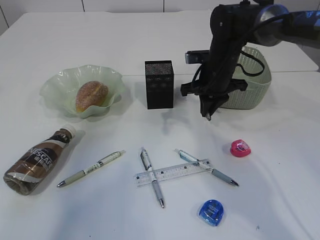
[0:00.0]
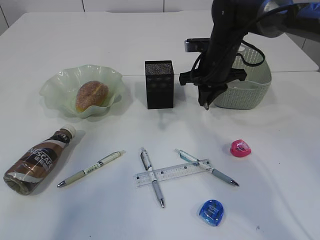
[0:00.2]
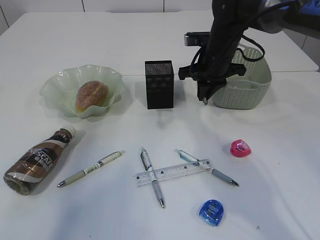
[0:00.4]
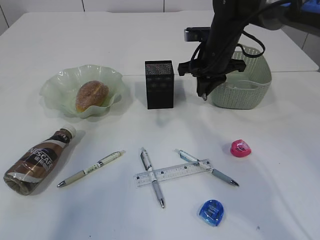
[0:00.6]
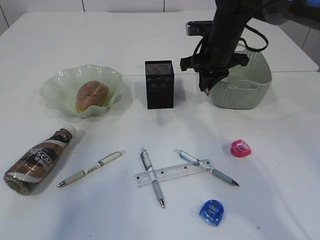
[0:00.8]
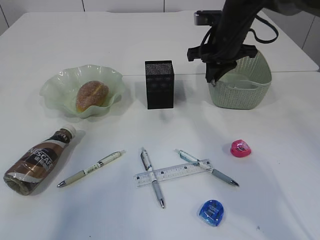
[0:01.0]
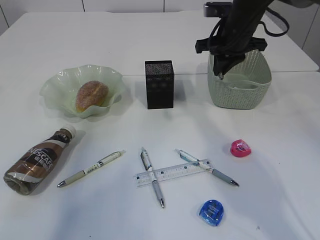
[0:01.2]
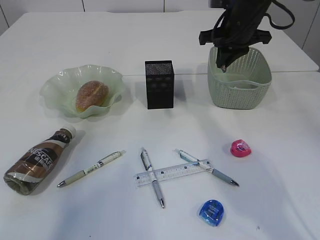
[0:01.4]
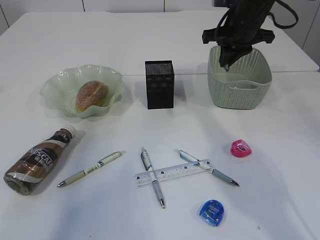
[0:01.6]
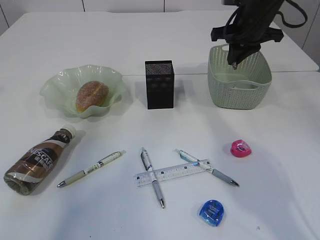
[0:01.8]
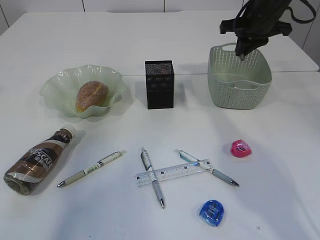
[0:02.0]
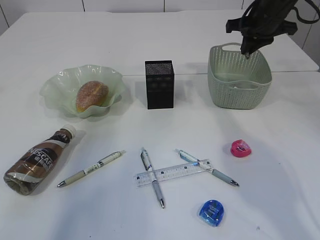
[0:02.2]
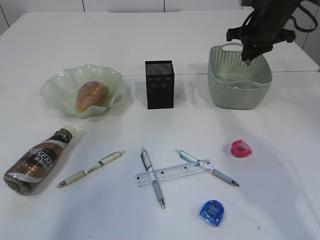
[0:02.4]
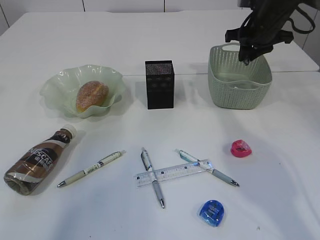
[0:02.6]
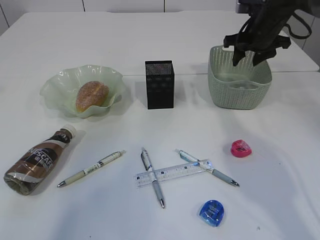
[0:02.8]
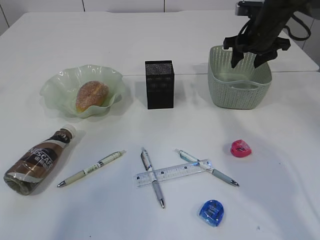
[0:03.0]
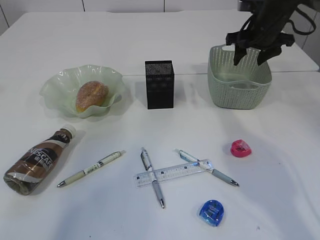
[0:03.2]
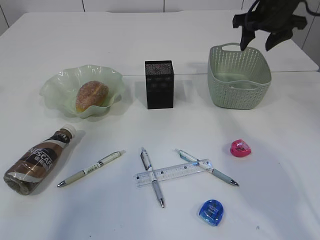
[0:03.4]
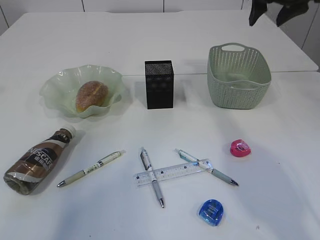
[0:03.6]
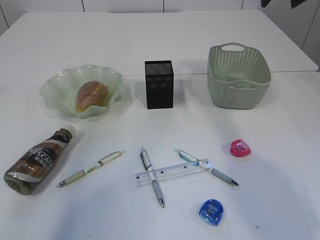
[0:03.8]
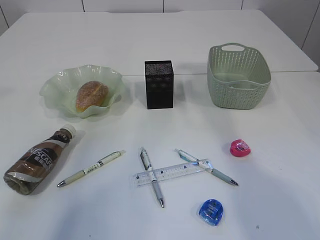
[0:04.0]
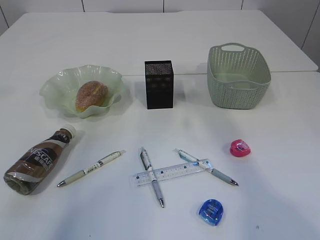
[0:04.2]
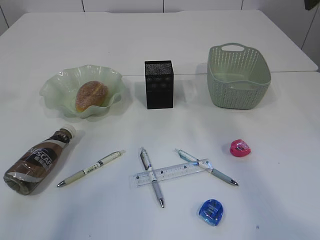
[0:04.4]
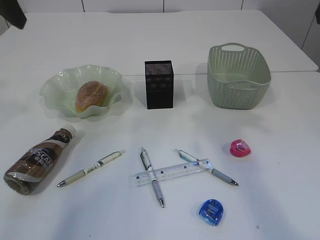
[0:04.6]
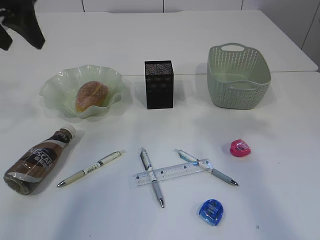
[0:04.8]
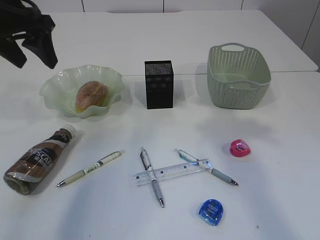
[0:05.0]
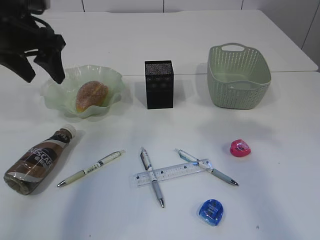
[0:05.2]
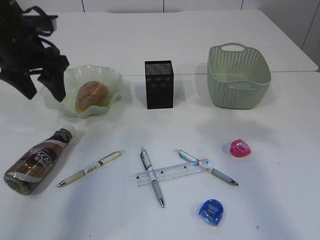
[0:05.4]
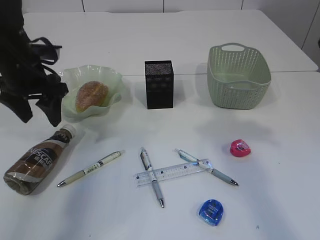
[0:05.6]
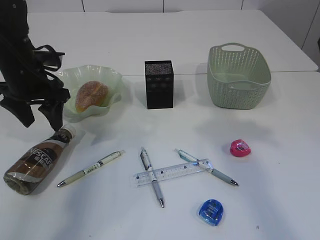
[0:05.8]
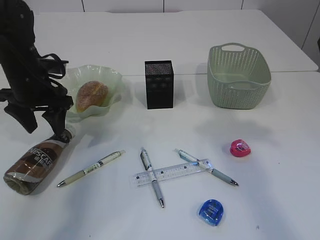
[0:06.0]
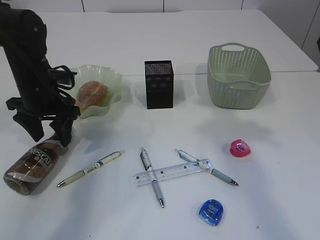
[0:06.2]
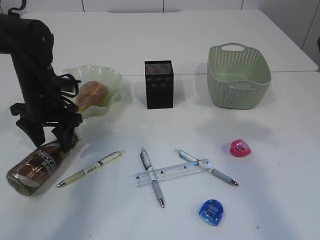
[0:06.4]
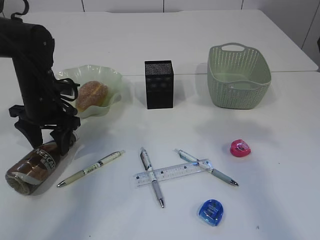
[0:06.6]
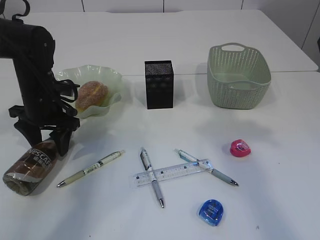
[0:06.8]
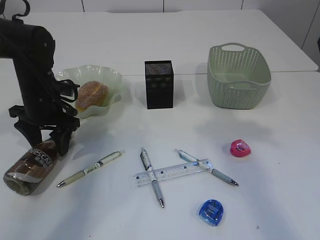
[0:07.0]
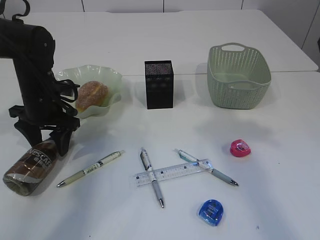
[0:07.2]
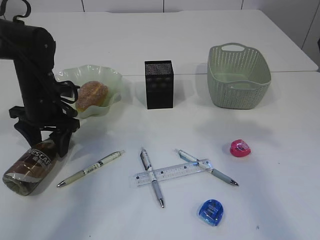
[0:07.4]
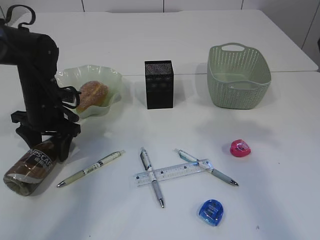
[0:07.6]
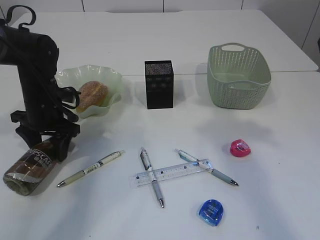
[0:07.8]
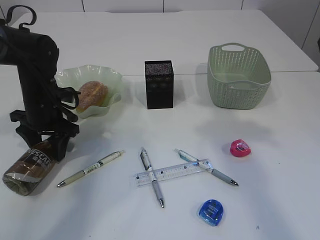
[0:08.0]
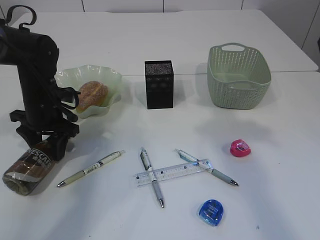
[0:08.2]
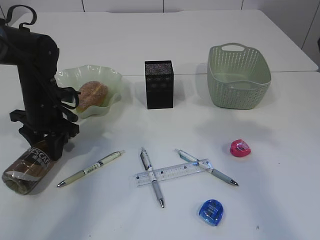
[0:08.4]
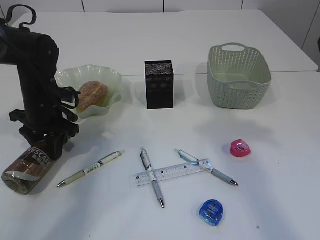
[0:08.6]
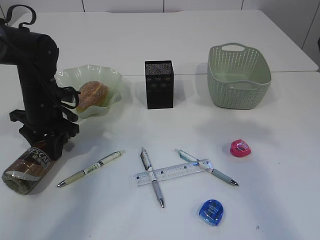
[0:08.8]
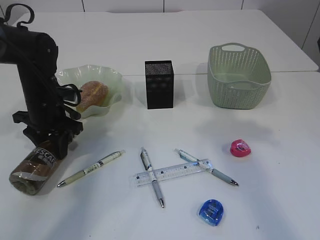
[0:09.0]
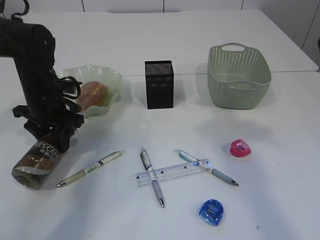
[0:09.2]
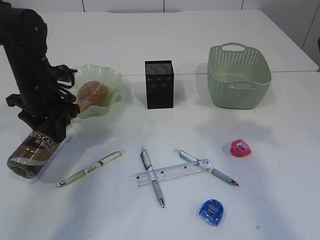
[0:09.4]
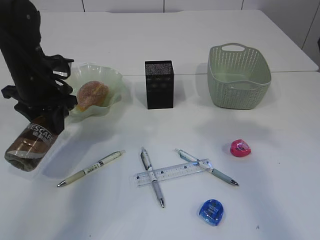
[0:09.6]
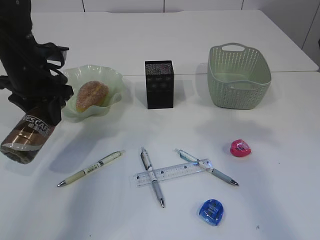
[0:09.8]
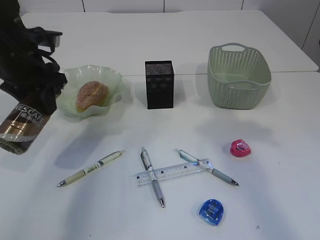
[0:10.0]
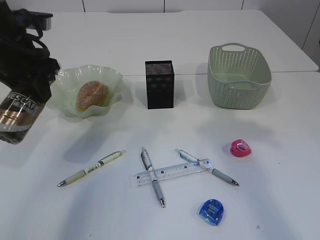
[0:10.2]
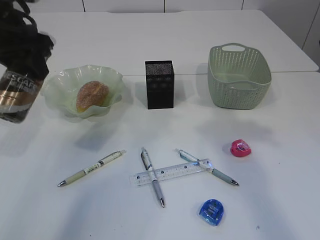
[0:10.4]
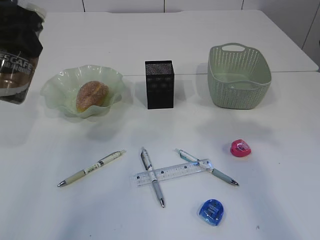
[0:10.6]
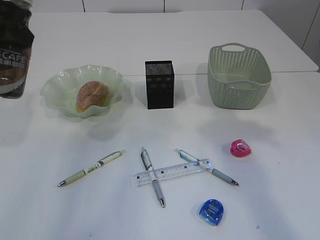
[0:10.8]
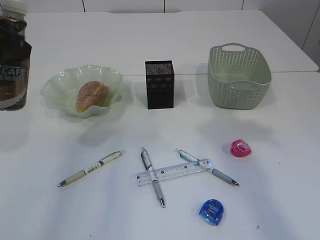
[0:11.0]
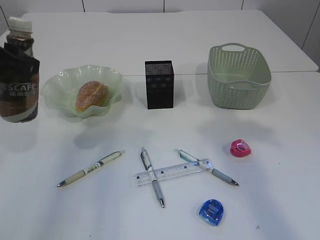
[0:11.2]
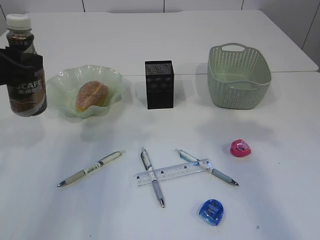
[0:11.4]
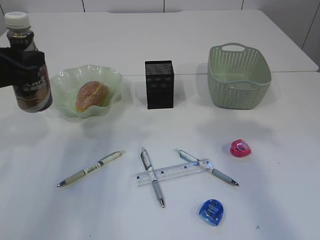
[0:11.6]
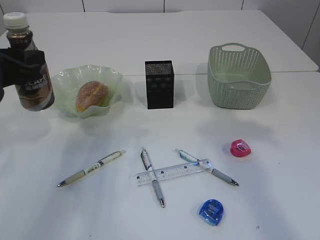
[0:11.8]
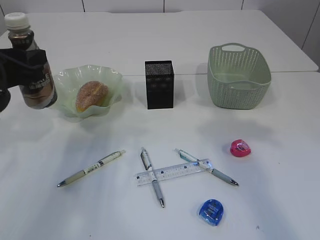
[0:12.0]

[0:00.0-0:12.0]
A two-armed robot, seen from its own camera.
Step, 0:00.8 to 0:02.8: Place the waste paper in the basket.
Step, 0:03.0 to 0:10.0: Pick up the bottle with the left arm.
0:00.0 to 0:01.6: The right gripper is displaced upward by some 10 cm.
0:01.6 to 0:03.0: The right gripper heads to the right, covering some 5 cm, and opens.
0:03.0 to 0:04.4: The right gripper travels backward and upward by approximately 25 cm.
0:04.4 to 0:06.0: The left gripper travels downward by some 25 cm.
0:06.0 to 0:07.6: The left gripper is displaced downward by about 5 cm.
0:07.6 to 0:09.0: The left gripper closes up.
0:09.0 to 0:10.4: The left gripper moves upward, roughly 20 cm.
0:10.4 to 0:12.0: The left gripper goes roughly 10 cm downward and backward.

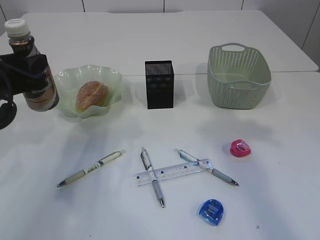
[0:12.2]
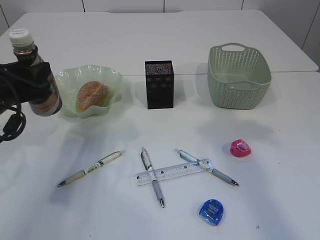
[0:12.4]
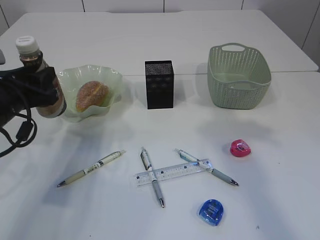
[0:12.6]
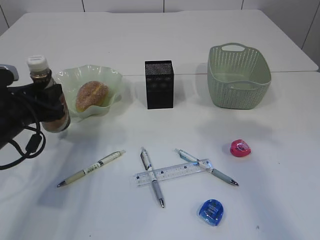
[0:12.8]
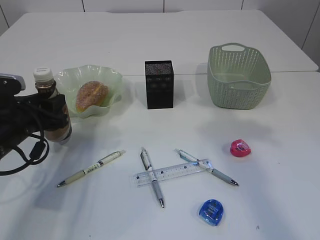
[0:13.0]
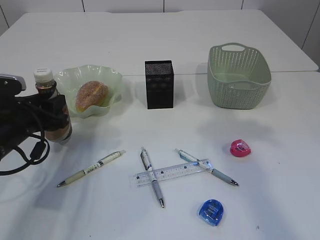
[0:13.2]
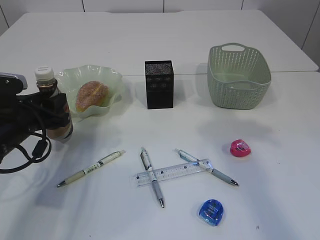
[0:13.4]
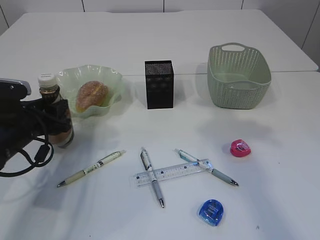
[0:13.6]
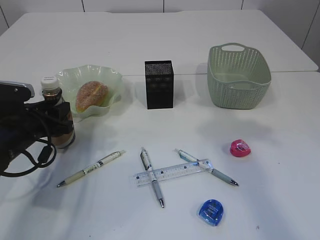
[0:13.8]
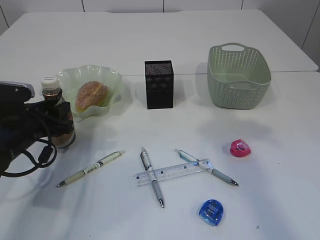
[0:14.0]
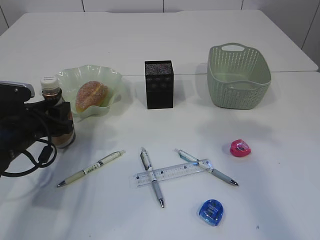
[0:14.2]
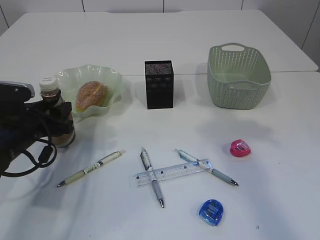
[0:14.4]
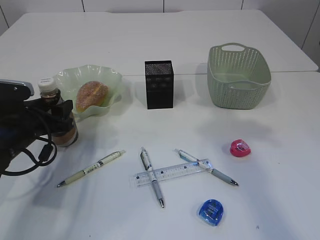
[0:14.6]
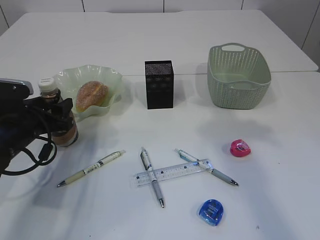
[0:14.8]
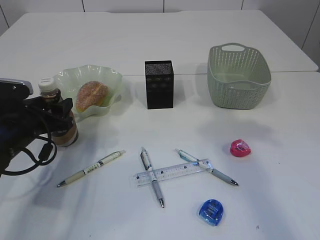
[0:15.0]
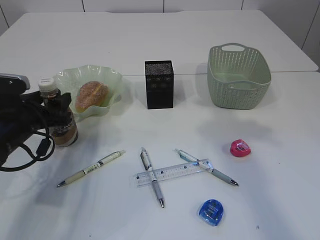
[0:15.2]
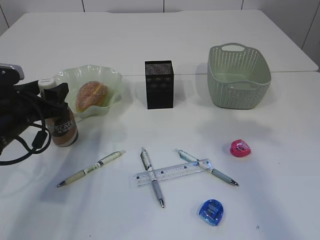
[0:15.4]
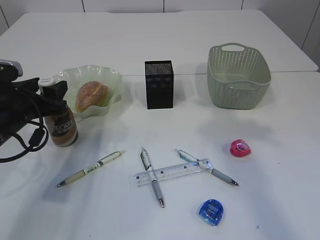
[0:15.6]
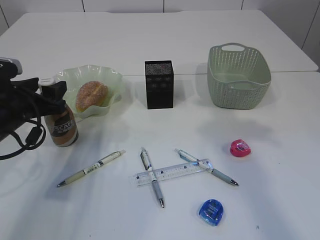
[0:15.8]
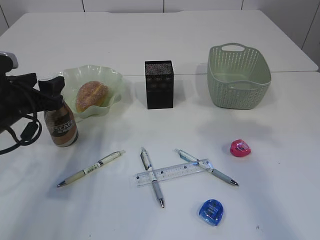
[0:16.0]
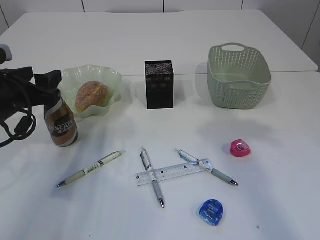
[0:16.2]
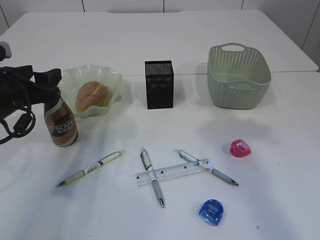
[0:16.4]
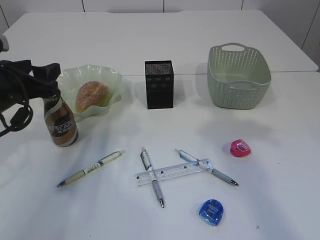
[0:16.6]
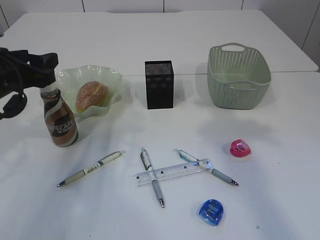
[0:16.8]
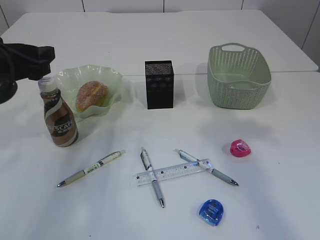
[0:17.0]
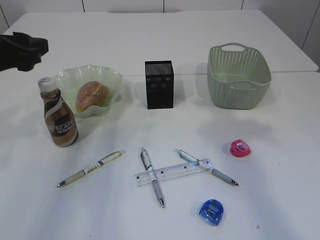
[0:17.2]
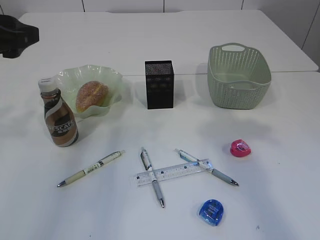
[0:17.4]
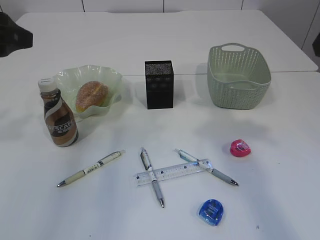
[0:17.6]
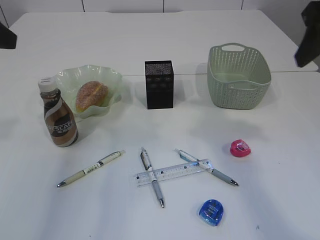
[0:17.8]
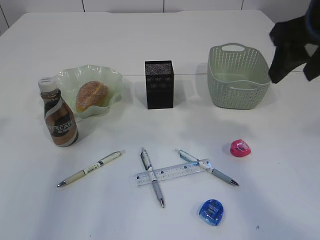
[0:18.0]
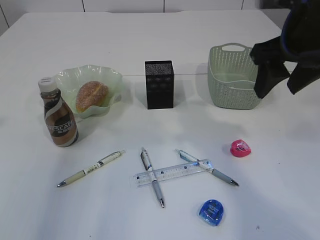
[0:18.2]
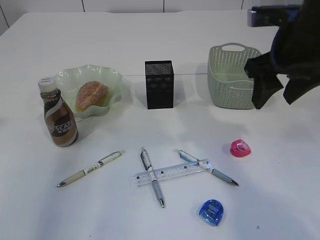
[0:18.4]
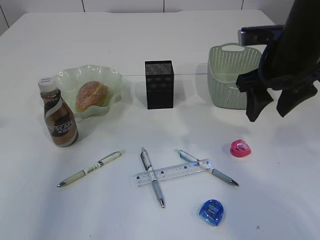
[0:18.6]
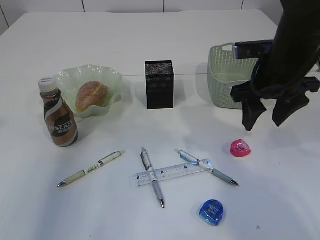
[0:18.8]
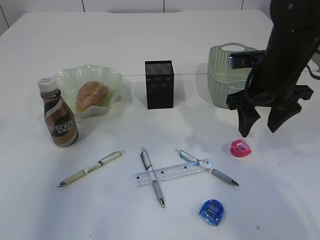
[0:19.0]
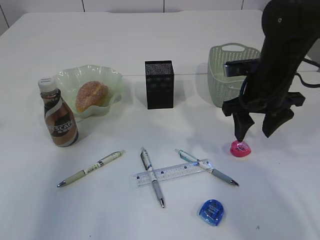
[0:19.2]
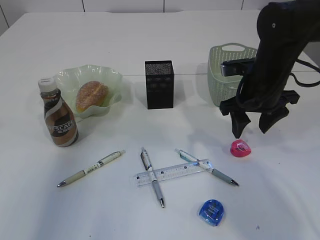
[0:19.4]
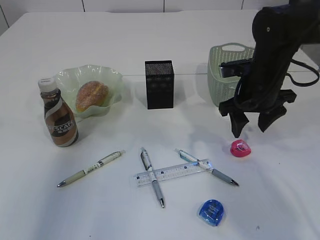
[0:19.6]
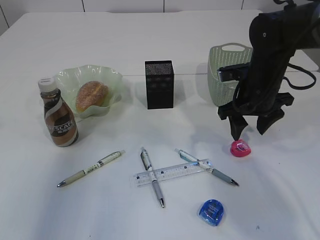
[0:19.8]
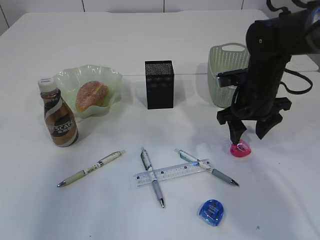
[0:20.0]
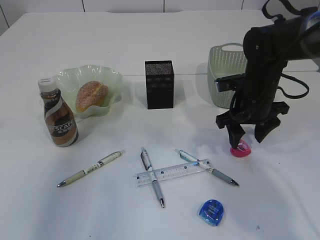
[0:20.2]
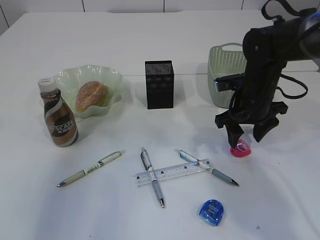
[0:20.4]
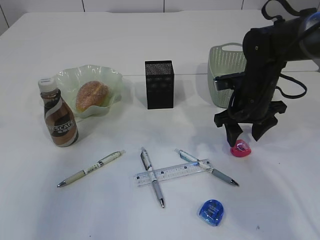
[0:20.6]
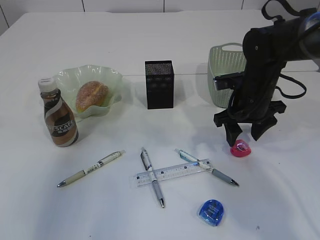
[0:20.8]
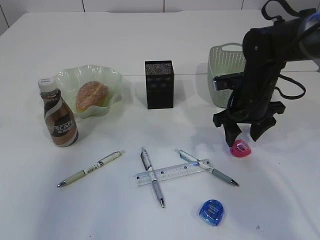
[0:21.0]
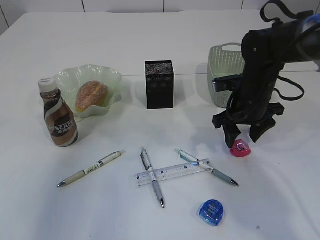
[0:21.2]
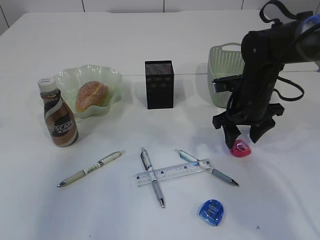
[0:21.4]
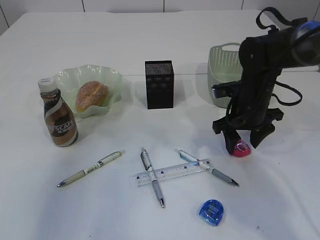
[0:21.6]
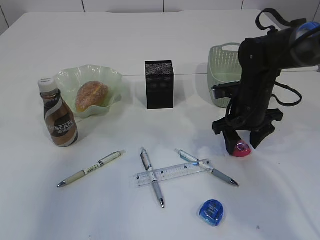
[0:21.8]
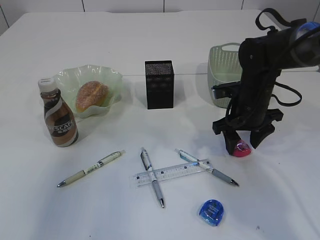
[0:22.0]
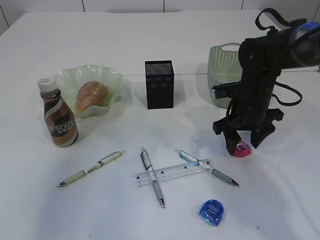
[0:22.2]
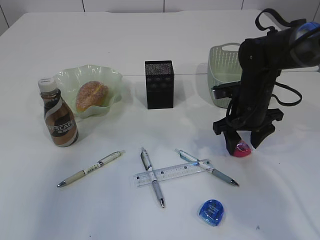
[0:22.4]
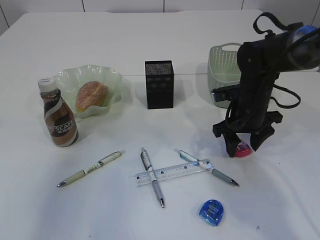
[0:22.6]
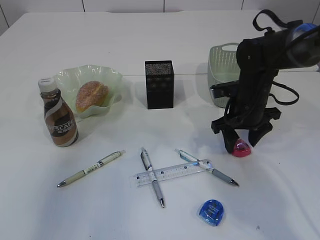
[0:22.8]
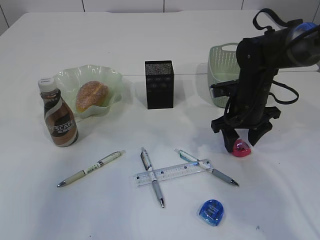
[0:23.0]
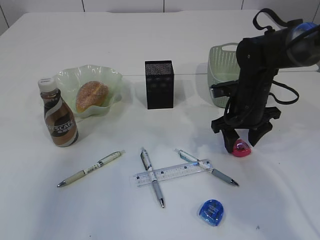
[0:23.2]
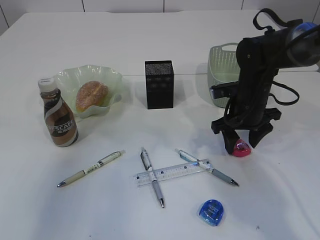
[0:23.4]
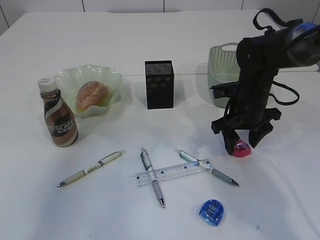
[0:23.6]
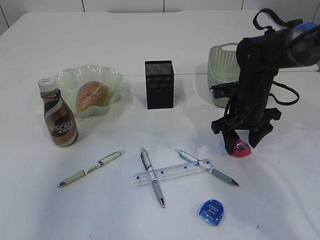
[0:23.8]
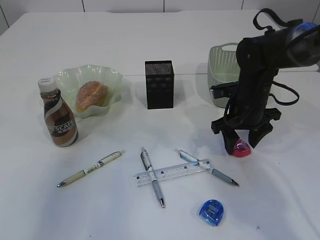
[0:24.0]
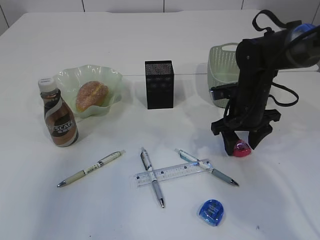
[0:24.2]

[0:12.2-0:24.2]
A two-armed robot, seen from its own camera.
Step, 0:12.2 to 0:17.2: Place the bottle.
0:12.2 to 0:13.8: The left gripper heads downward, covering some 10 cm.
0:13.8 to 0:15.2: The two grippers keep their place.
0:15.2 to 0:16.6: The left gripper moves upward, some 10 cm.
0:16.6 to 0:18.2: The left gripper shifts some 20 cm upward. Meanwhile the right gripper moves downward and to the left, approximately 10 cm.
0:18.2 to 0:19.8: The right gripper is displaced downward and forward by approximately 15 cm.
0:19.8 to 0:22.6: The grippers move only a little.
0:22.6 to 0:24.2: Both grippers stay about where they are.
